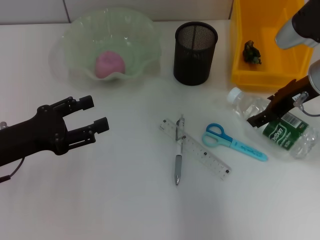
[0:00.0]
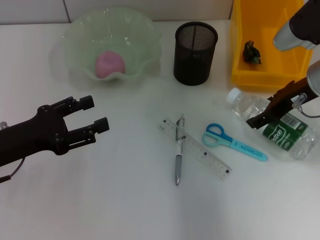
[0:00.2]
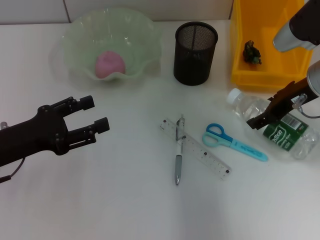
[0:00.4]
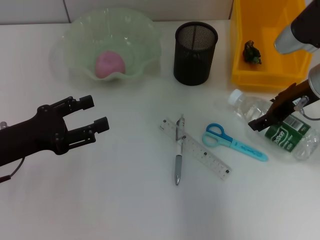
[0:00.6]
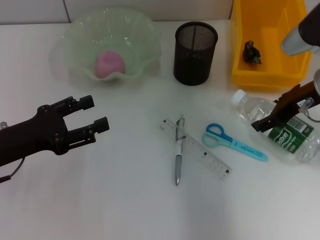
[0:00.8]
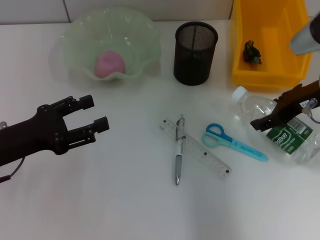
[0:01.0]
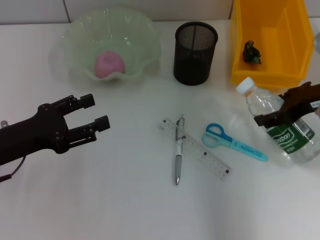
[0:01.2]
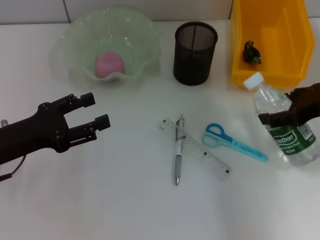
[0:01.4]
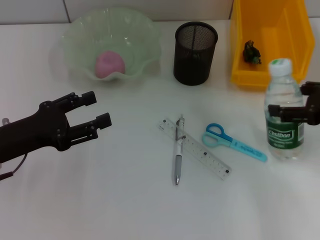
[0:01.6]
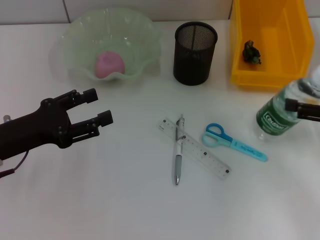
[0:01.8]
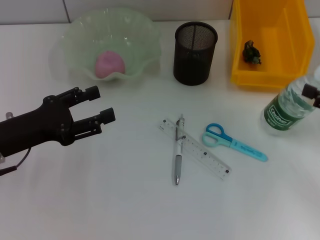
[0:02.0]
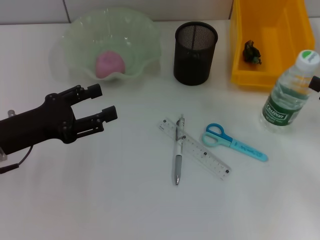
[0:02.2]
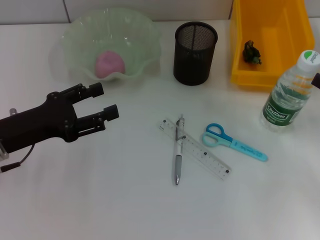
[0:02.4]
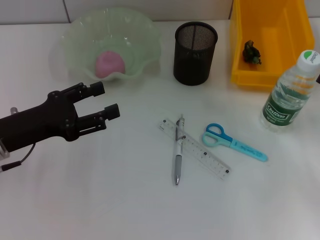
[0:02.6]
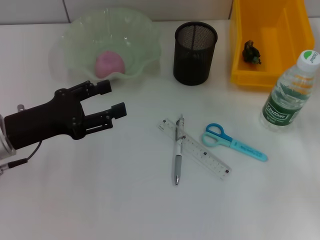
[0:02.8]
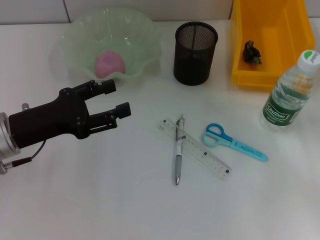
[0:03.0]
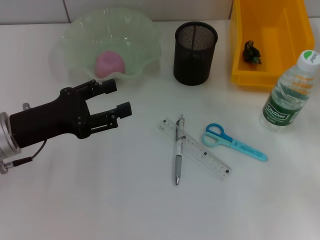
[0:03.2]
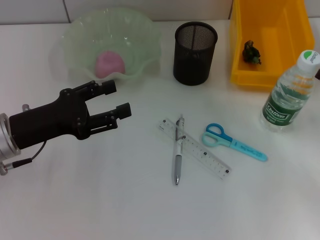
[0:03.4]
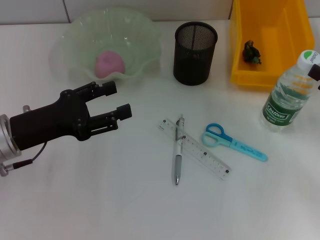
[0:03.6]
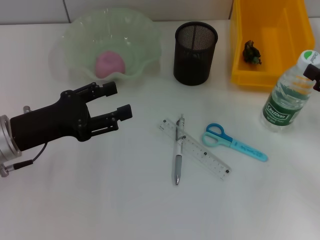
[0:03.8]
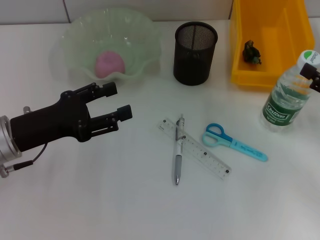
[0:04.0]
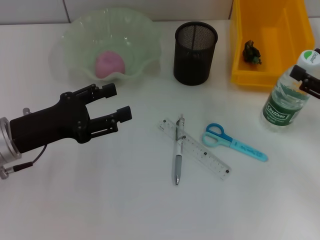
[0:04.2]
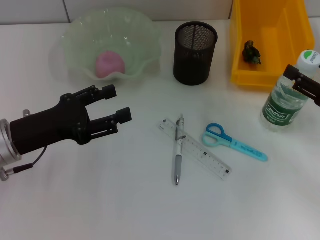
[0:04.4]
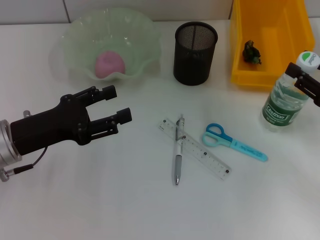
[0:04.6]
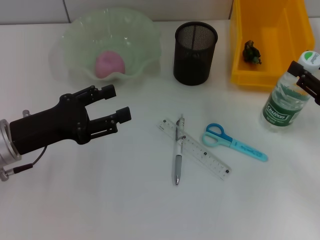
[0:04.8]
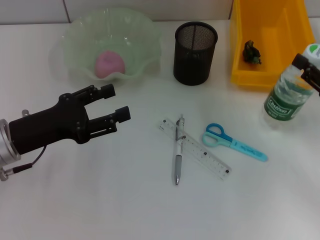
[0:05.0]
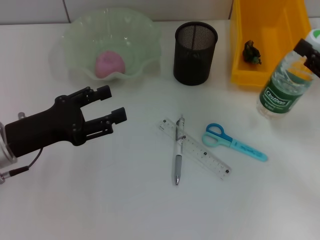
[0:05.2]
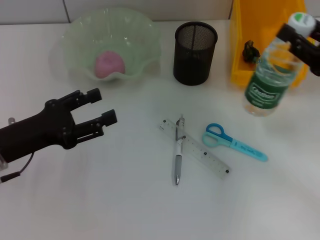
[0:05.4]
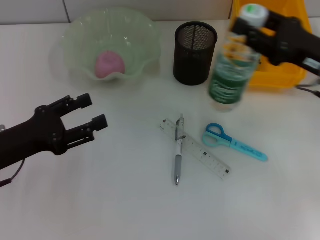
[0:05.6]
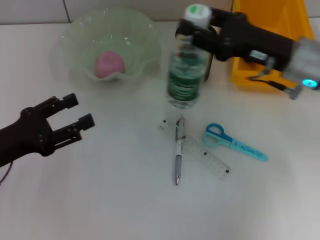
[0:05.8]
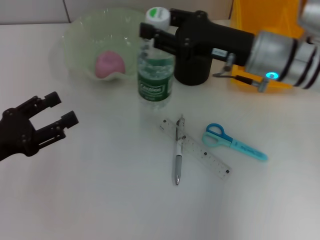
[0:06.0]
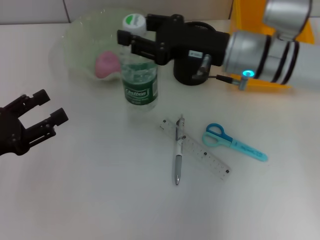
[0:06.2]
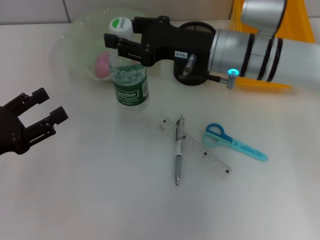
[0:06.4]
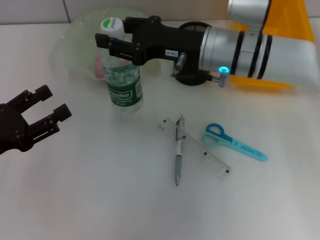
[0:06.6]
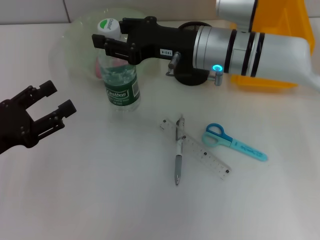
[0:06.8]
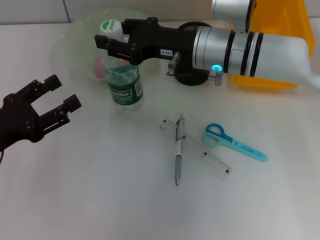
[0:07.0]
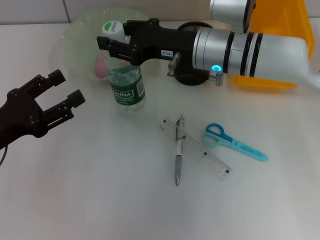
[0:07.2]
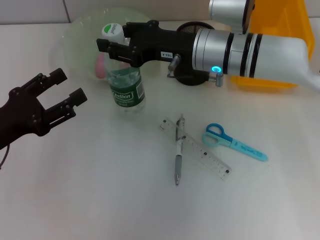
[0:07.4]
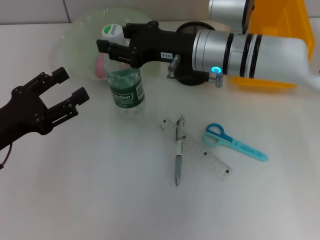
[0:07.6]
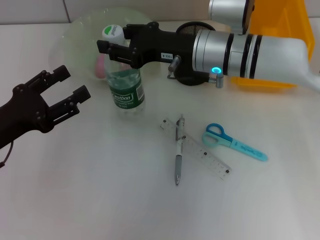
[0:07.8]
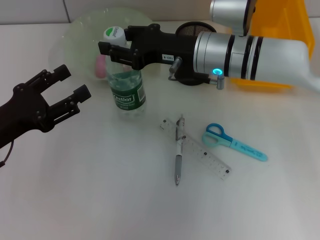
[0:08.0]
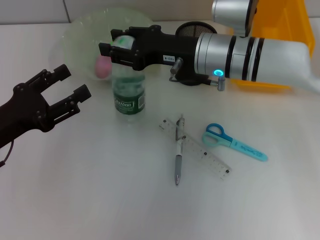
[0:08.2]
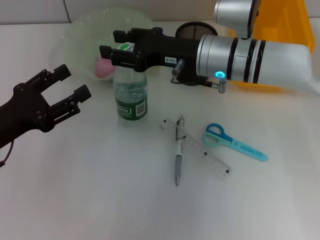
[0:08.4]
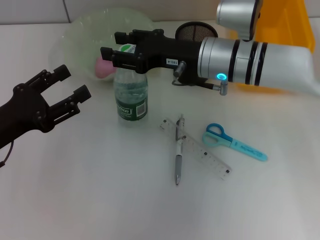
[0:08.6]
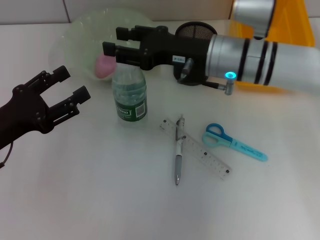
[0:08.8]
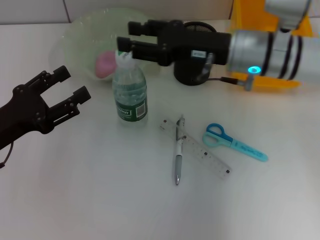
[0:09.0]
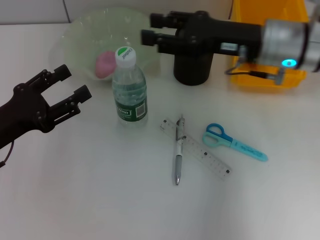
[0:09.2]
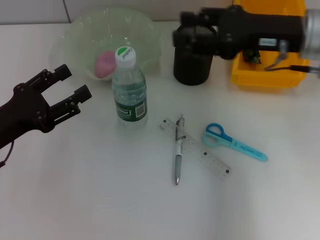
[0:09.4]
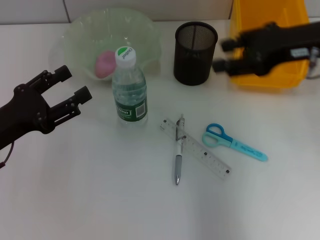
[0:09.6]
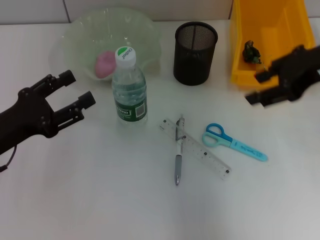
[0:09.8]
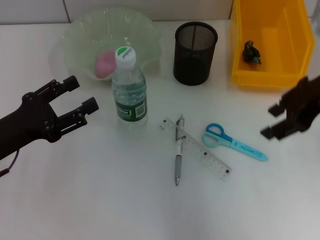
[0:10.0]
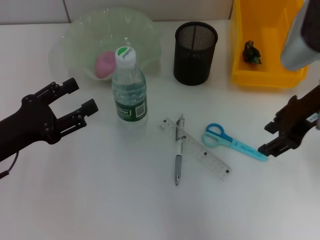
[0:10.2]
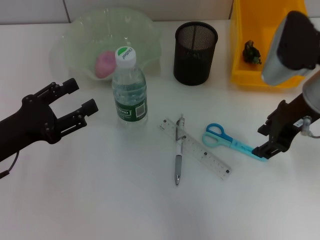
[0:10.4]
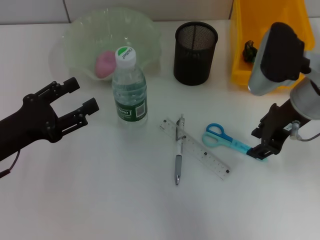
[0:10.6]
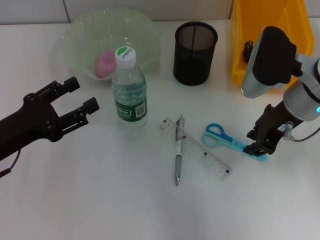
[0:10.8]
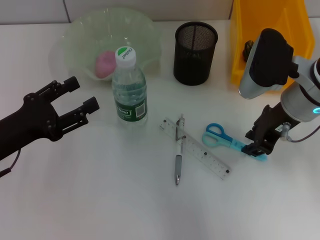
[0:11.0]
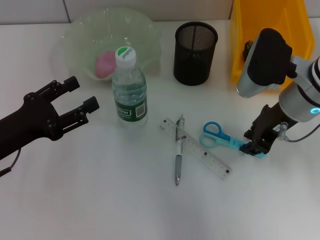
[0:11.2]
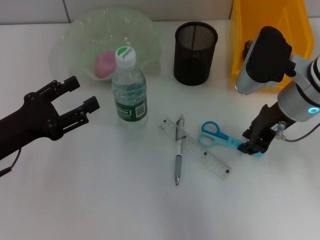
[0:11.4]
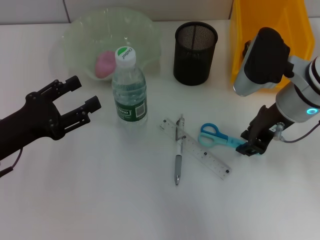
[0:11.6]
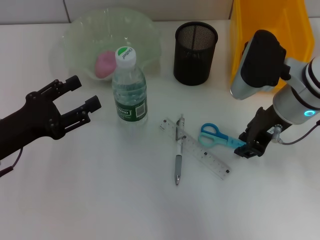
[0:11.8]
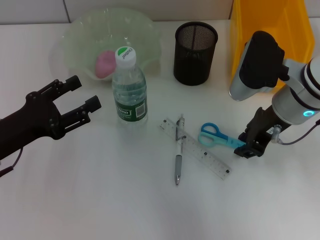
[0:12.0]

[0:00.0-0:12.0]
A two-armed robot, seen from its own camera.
Step, 0.8 to 2.4 s: Place the water bottle on the table with the right hand.
Step, 2.6 to 4.6 s: Grab the water bottle with the right hand.
Step, 4.8 to 8.8 s: Place the water bottle on the table with the right hand.
0.0 to 1.6 s: The right gripper travels backward and to the right by roughly 10 cm.
1.6 to 3.0 s: The right gripper travels downward, backward and to the right by some 10 cm, and closes.
3.0 to 4.4 s: The right gripper opens its fingers.
4.4 to 6.0 s: The left gripper goes some 5 cm to the left; the right gripper travels to the left and forward by approximately 20 cm, and closes its fingers.
6.0 to 7.6 s: The right gripper travels to the left by approximately 5 cm.
7.6 to 9.0 s: The grippers make only small movements.
9.0 to 10.4 s: The right gripper heads to the right, covering about 5 cm.
10.4 to 12.0 s: The right gripper closes up.

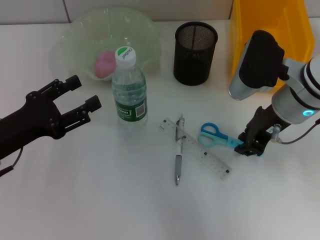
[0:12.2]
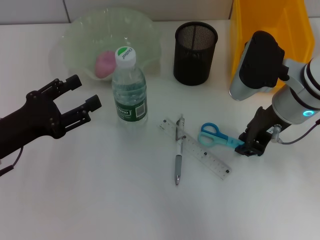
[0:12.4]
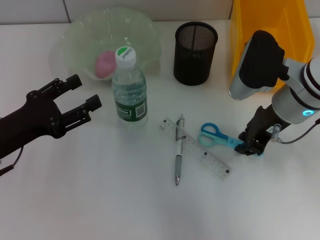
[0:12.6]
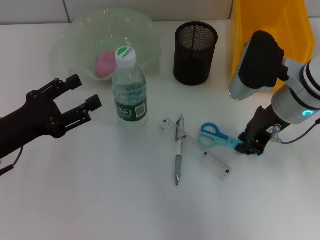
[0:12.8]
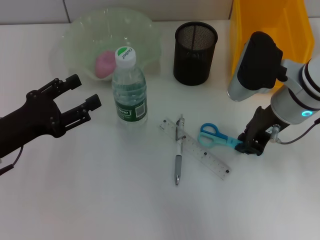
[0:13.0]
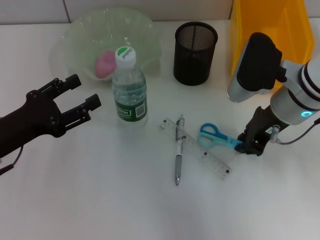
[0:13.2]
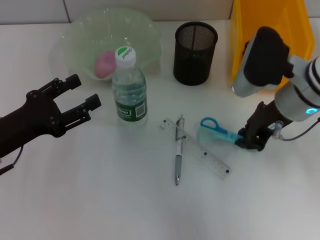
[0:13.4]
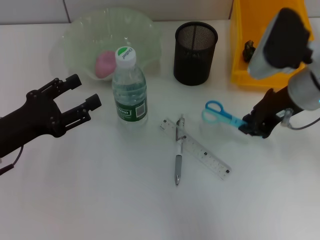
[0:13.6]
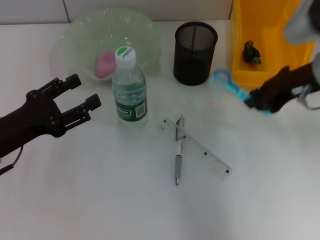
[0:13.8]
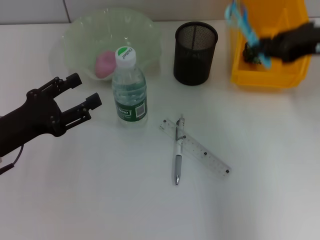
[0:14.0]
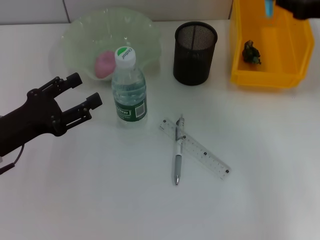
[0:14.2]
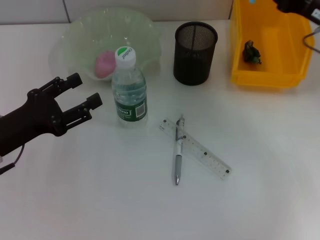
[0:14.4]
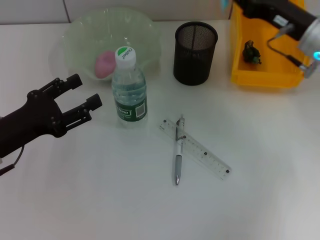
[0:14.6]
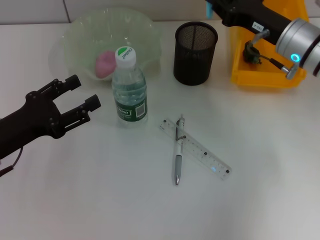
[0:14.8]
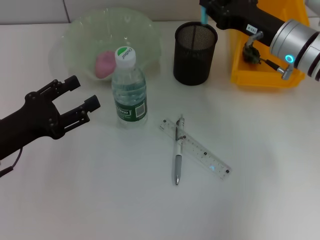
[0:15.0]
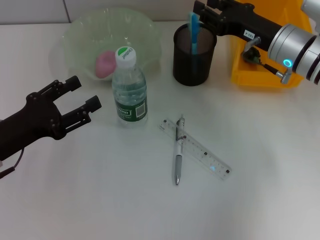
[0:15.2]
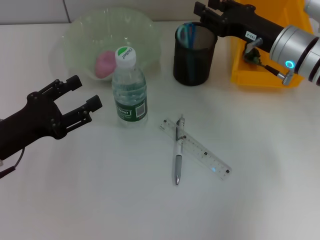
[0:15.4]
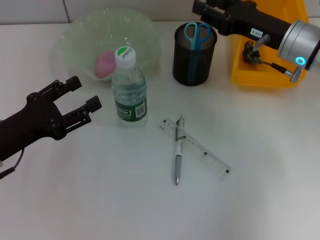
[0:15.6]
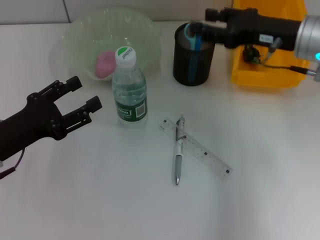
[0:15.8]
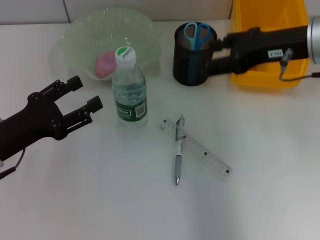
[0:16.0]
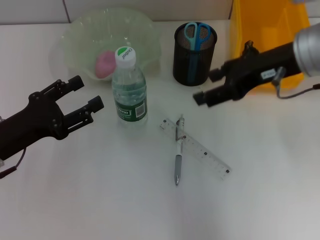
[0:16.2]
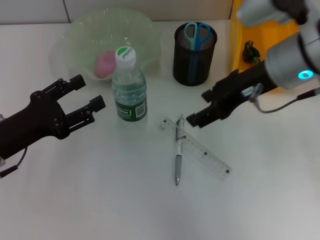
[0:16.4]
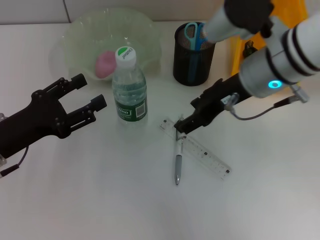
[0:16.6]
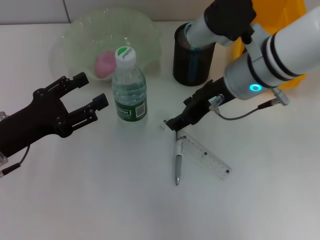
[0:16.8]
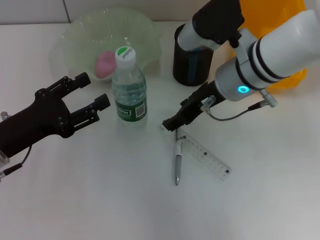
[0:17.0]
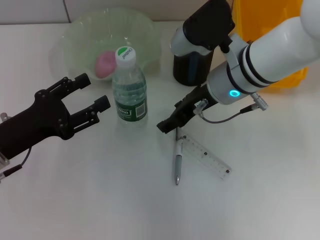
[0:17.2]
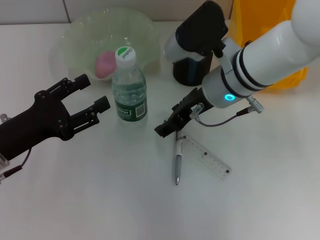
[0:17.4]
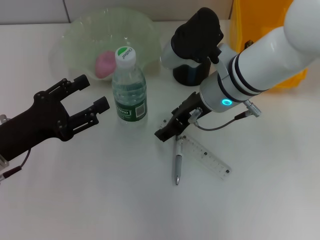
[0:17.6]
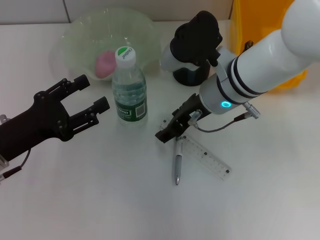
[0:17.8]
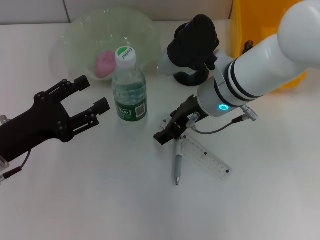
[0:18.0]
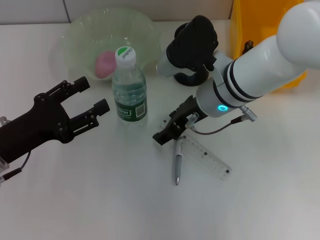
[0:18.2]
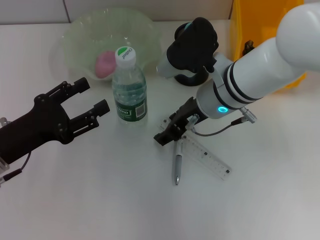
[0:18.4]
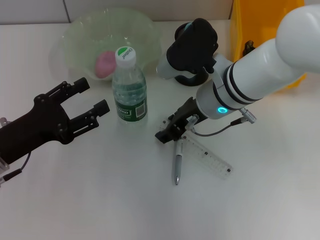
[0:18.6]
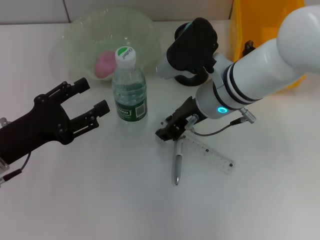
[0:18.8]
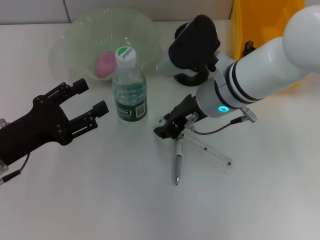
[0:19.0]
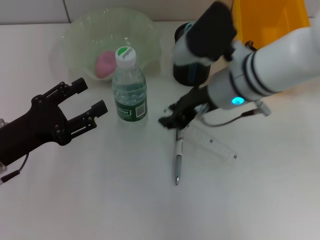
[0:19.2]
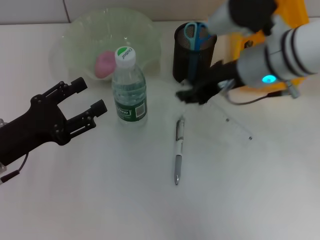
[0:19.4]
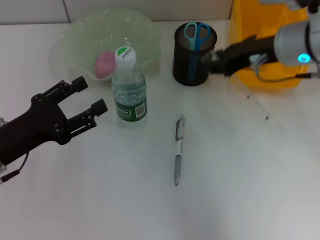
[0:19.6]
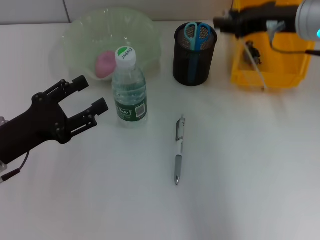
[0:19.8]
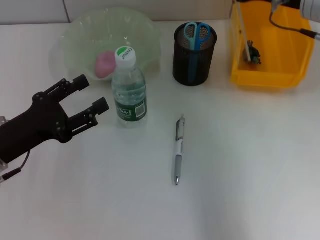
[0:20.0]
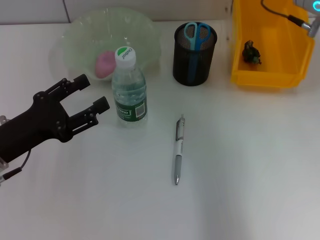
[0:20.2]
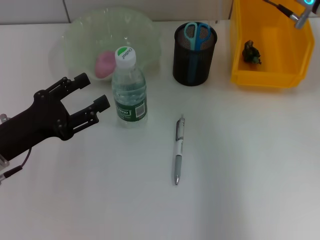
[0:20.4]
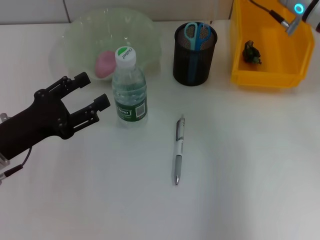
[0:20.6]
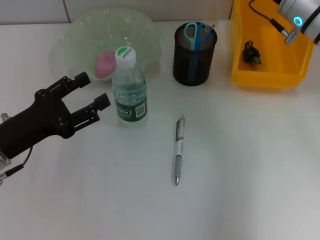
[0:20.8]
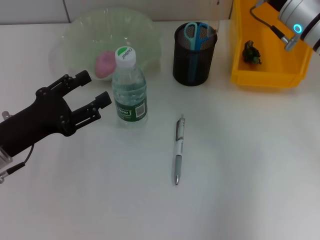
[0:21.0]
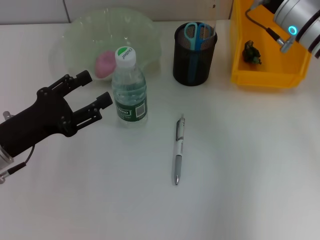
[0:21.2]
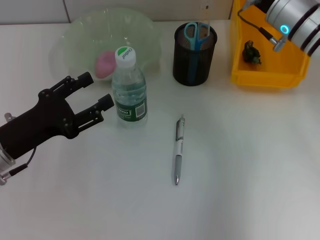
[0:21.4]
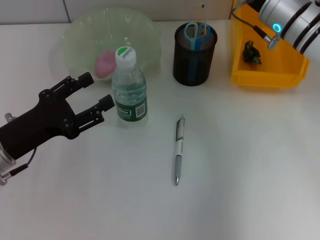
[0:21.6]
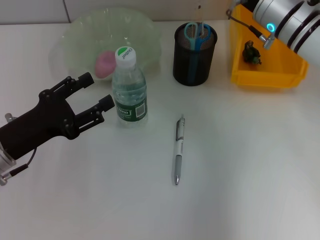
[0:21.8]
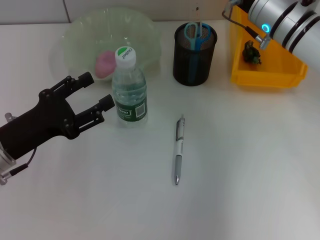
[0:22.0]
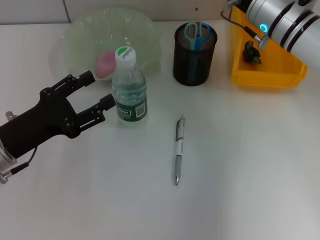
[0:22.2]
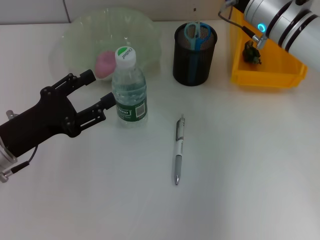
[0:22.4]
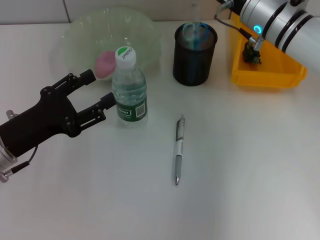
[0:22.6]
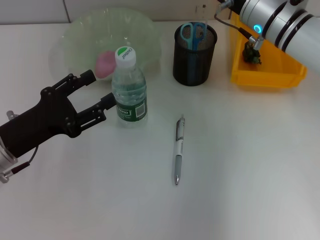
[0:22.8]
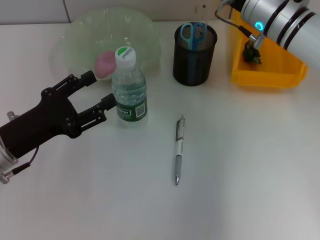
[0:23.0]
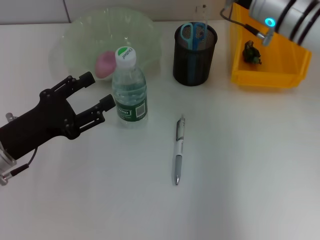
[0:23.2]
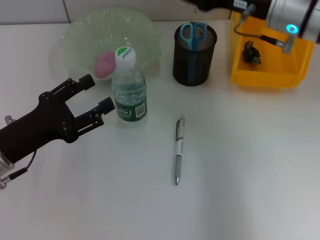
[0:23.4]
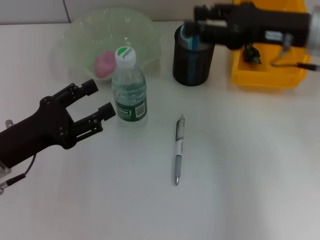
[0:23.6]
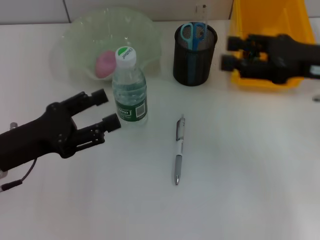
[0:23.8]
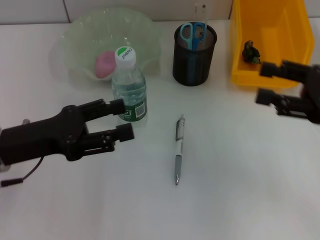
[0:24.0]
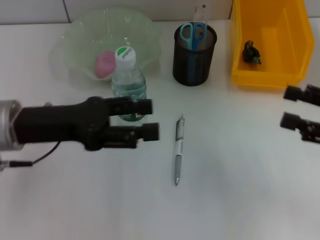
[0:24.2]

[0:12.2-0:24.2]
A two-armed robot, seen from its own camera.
Step, 13.4 to 15.6 s: Place the blue scissors into the pen holder with the right hand.
Step, 15.8 to 18.8 s: Grab the ruler with the right hand.
Step, 19.2 to 22.8 s: Place the ruler into the pen holder with the right hand.
12.2 to 13.8 s: The right gripper heads to the right, covering approximately 5 cm.
13.8 to 15.2 s: The right gripper heads downward, covering some 5 cm.
15.2 to 16.6 s: The right gripper moves upward, to the left and backward, about 10 cm, and opens.
16.6 to 18.2 s: The right gripper moves downward, roughly 5 cm.
18.2 to 19.8 s: The right gripper goes about 15 cm to the right and upward, and closes its fingers.
19.8 to 21.2 s: The right gripper travels downward by roughly 5 cm.
21.2 to 22.6 s: The grippers move only a little.
22.6 to 24.2 s: The right gripper travels backward and to the right by roughly 25 cm, and opens; the left gripper goes approximately 10 cm upward.
